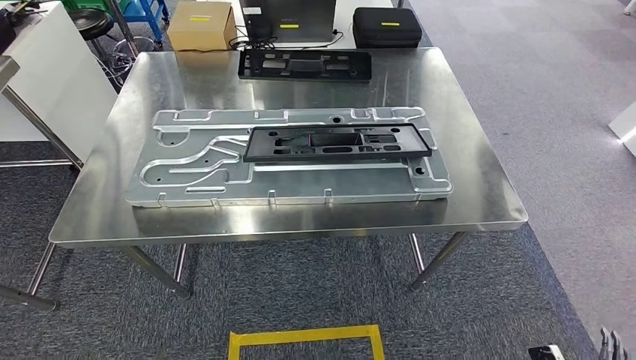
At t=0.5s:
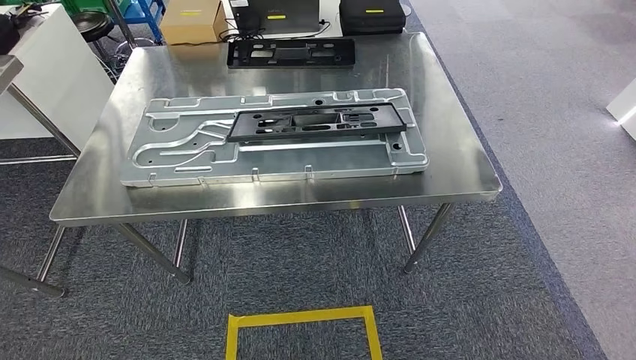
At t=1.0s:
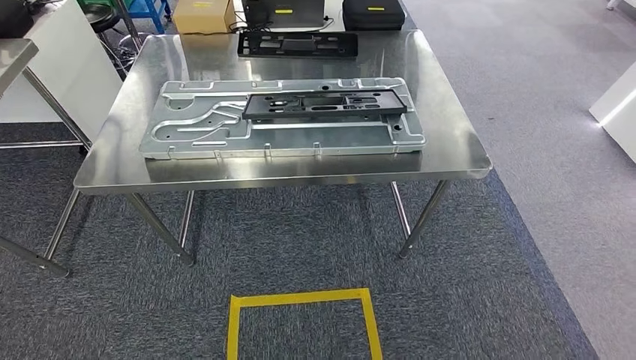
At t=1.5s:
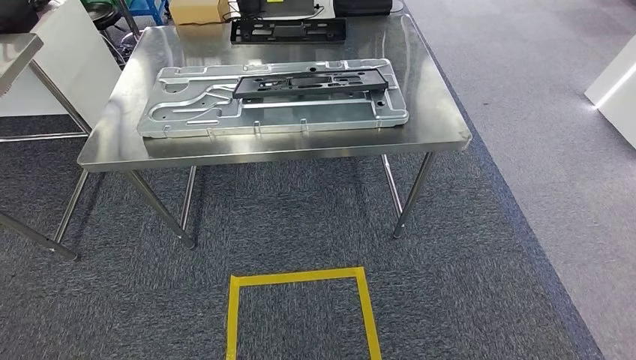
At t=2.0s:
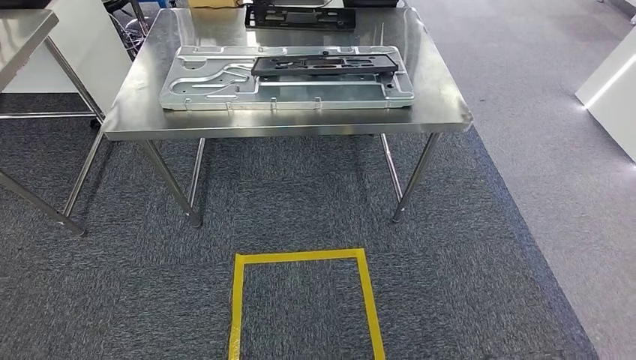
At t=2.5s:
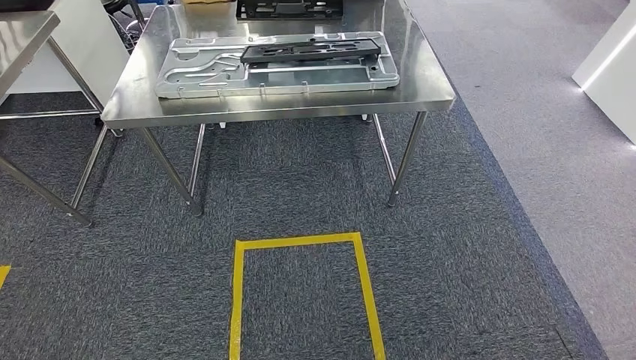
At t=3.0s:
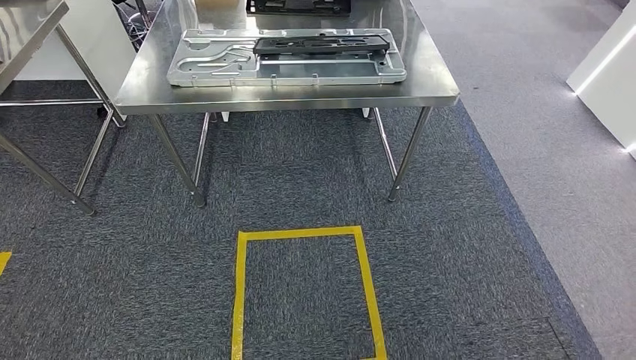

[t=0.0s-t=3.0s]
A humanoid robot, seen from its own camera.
Step, t=0.0s to t=3.0s: Move to the initial position of the shelf.
